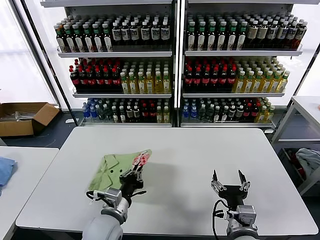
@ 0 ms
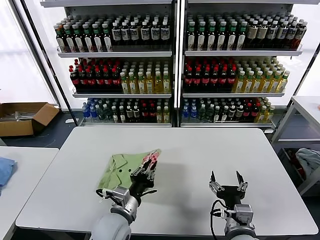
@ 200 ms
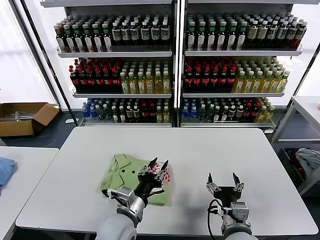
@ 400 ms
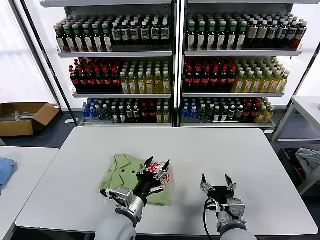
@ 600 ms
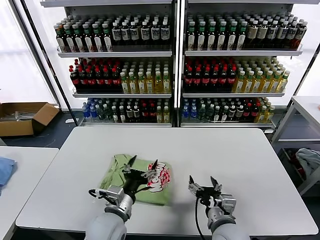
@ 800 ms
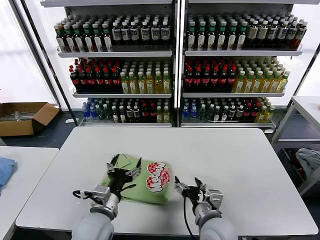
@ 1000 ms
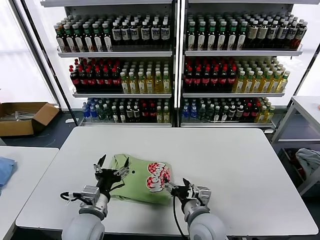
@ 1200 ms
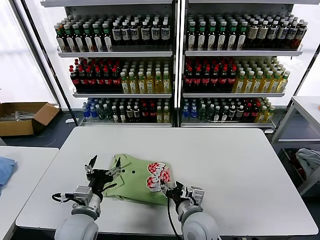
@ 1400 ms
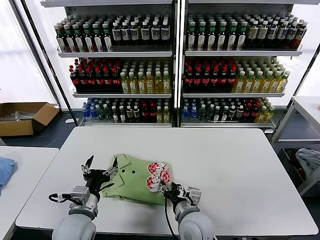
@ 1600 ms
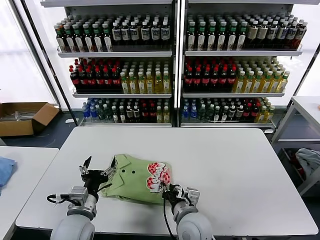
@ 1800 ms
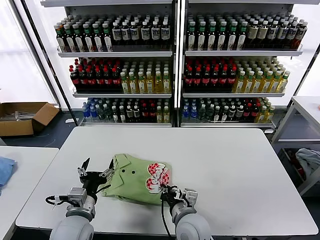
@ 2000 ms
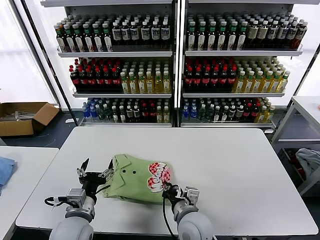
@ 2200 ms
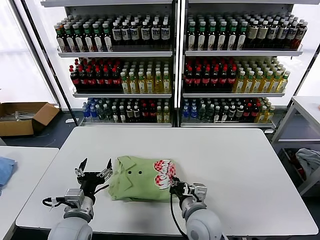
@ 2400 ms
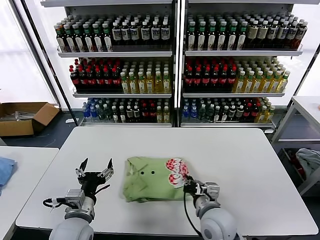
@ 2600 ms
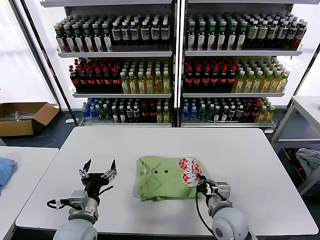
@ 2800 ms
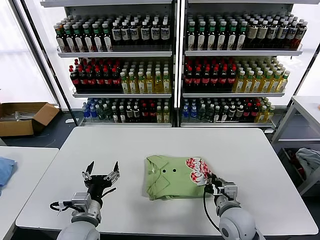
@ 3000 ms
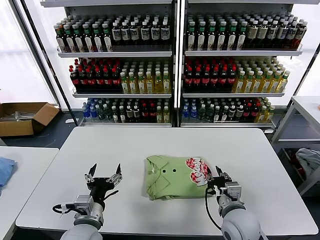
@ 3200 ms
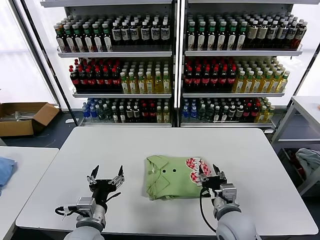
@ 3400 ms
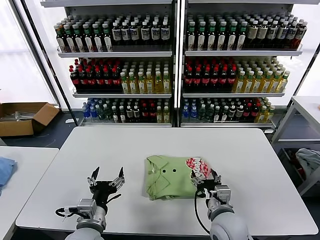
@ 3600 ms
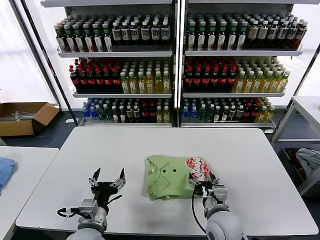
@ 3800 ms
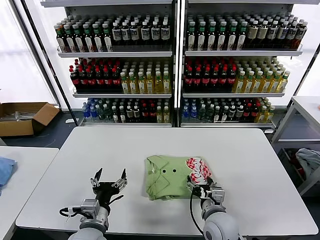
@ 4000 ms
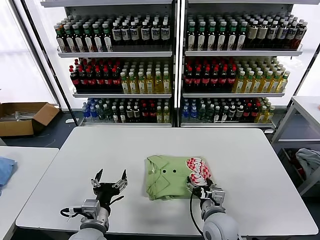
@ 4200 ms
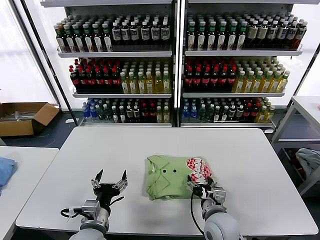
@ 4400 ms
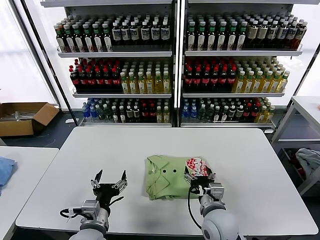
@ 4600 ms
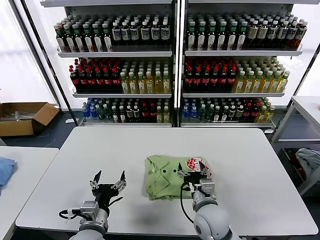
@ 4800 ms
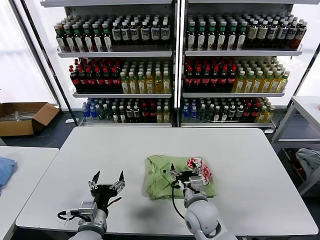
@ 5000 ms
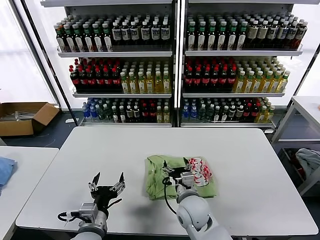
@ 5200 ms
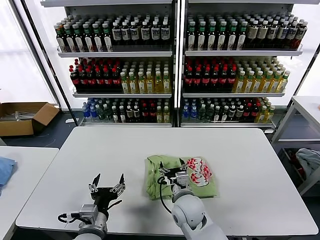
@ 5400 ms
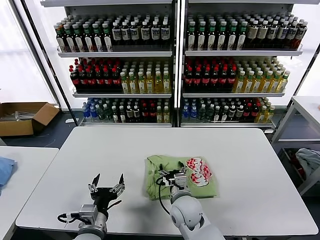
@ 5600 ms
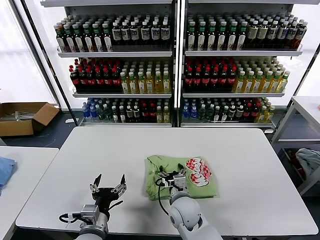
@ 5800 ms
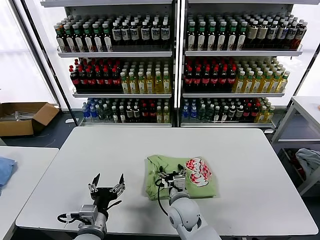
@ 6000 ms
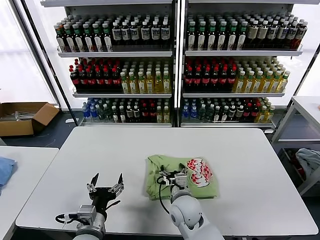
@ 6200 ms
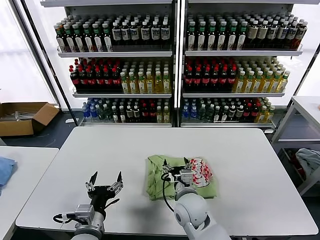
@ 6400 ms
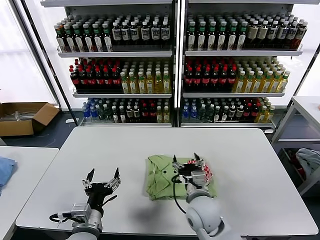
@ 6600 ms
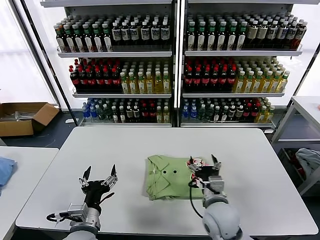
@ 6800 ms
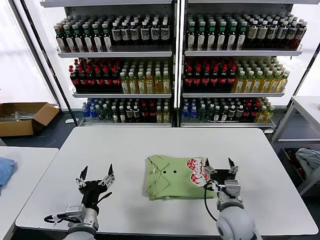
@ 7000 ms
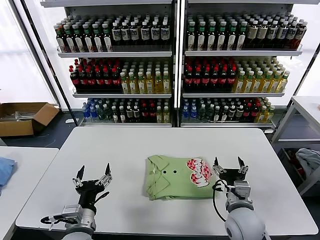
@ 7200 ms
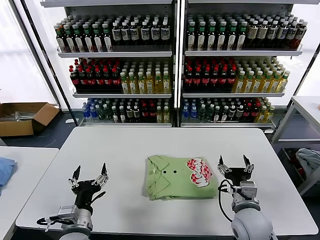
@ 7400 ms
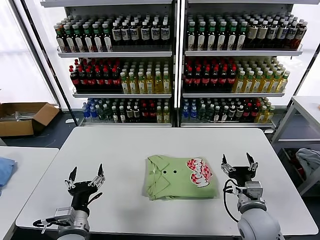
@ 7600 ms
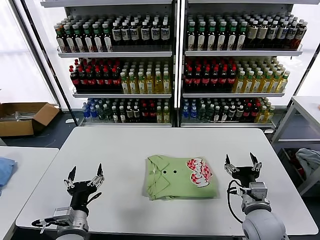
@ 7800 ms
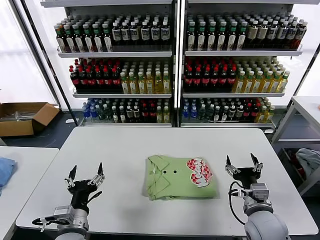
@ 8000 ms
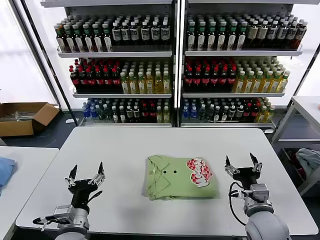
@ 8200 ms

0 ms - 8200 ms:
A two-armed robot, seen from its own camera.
Task of the whole recording: fold and organize the clothes.
Step, 600 ms - 6400 ms: Drag the clothes to the center of the table.
0 ms - 1600 ms: The right gripper shifts approximately 15 cm to the left and forward. The left gripper shifts approximately 5 cm to the left, and opens.
1600 ms - 3200 ms: The right gripper shifts about 10 cm to the right, and closes, then reopens.
3200 ms - 5000 ms: The right gripper travels to the left by about 10 cm, and opens up.
6600 ms - 8200 ms: The right gripper heads to the right, covering roughly 15 cm.
